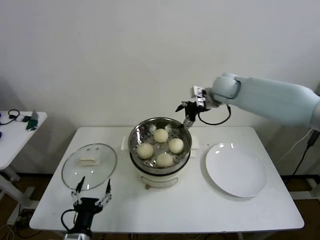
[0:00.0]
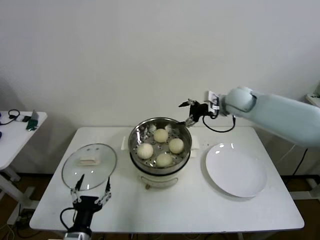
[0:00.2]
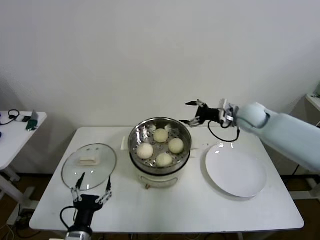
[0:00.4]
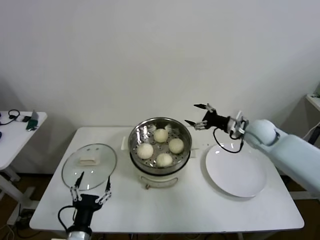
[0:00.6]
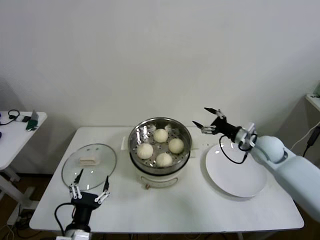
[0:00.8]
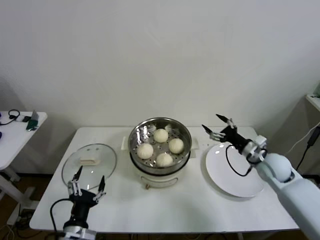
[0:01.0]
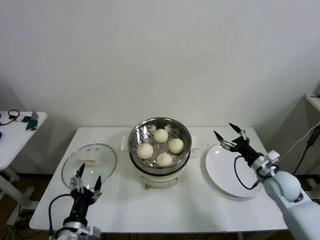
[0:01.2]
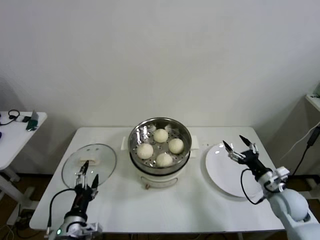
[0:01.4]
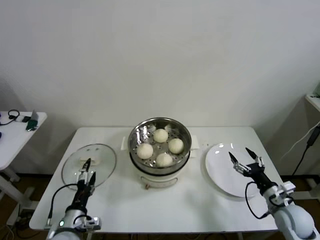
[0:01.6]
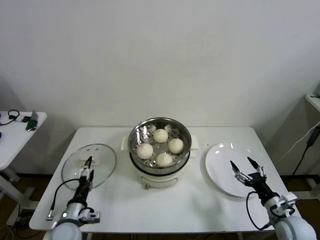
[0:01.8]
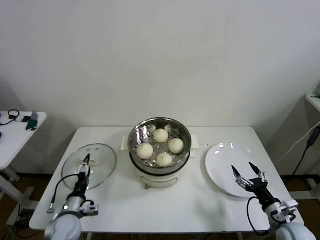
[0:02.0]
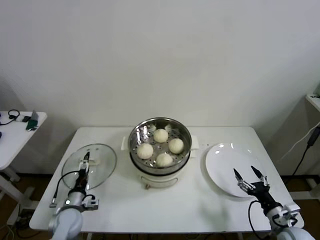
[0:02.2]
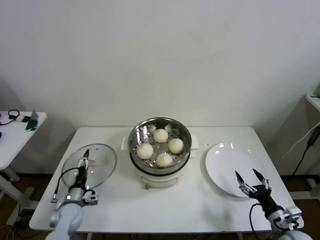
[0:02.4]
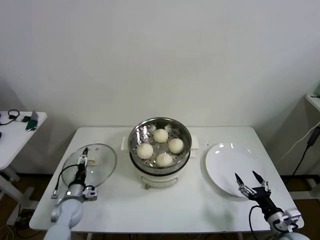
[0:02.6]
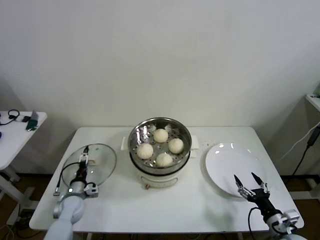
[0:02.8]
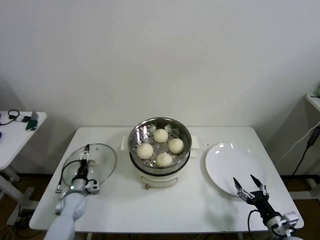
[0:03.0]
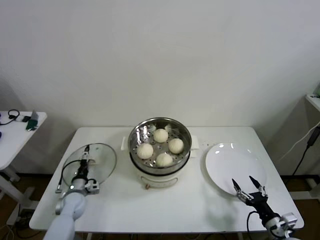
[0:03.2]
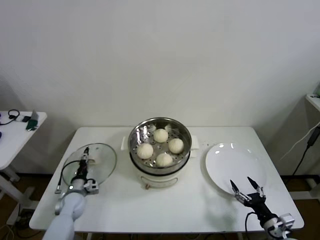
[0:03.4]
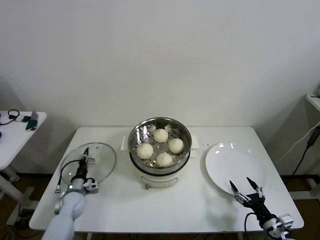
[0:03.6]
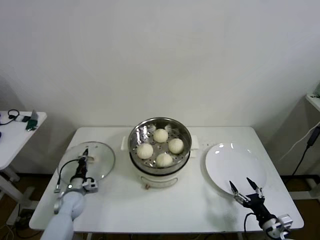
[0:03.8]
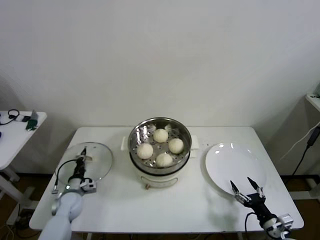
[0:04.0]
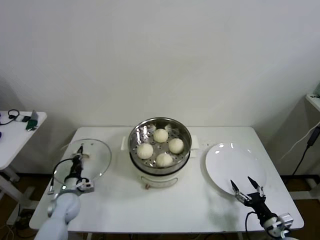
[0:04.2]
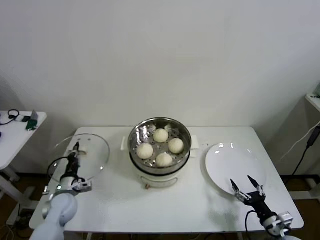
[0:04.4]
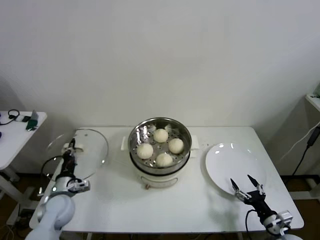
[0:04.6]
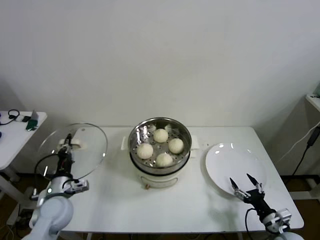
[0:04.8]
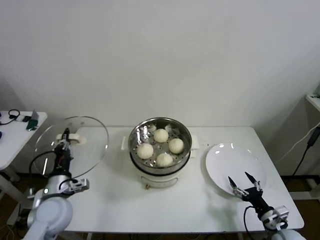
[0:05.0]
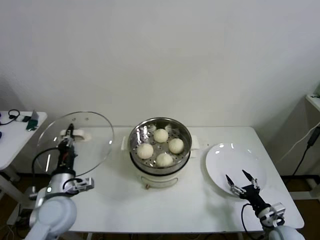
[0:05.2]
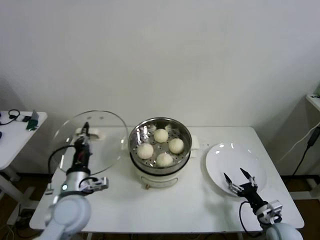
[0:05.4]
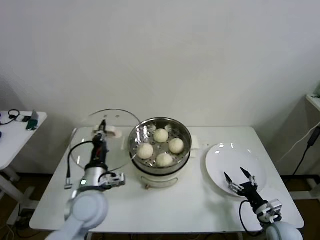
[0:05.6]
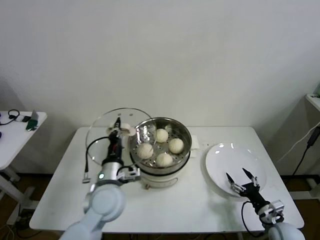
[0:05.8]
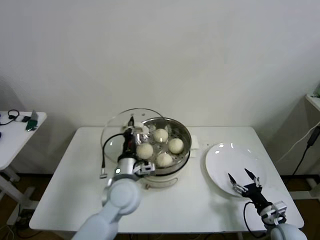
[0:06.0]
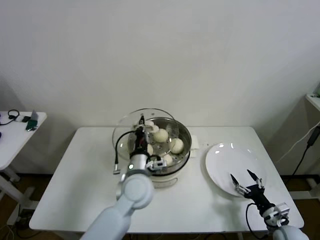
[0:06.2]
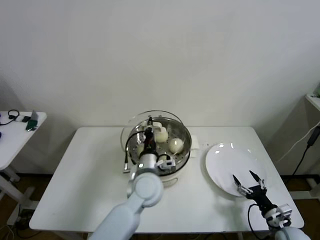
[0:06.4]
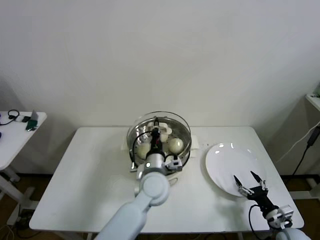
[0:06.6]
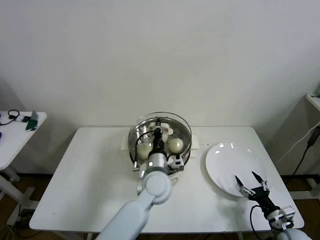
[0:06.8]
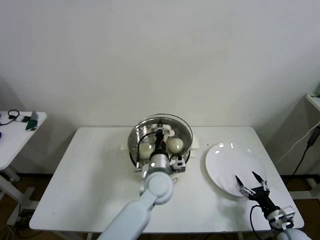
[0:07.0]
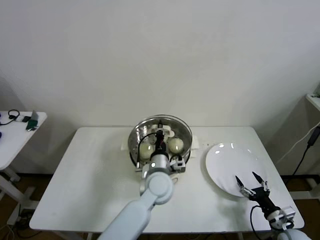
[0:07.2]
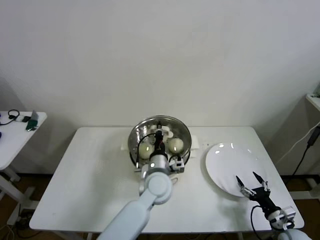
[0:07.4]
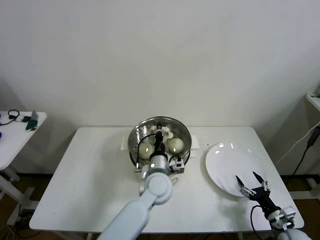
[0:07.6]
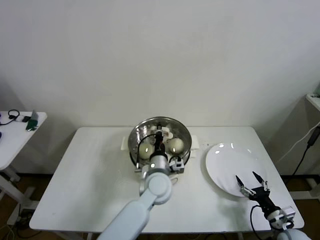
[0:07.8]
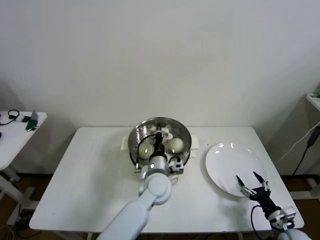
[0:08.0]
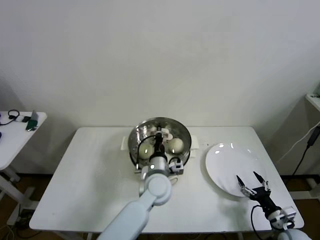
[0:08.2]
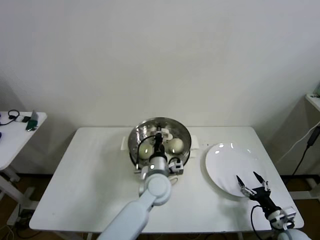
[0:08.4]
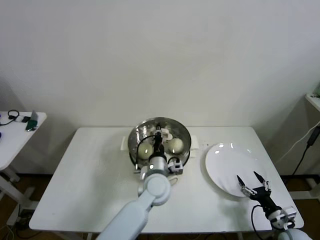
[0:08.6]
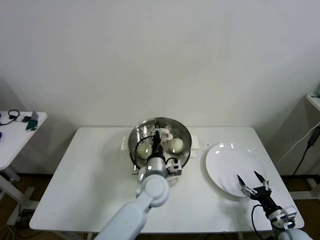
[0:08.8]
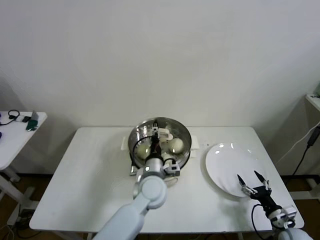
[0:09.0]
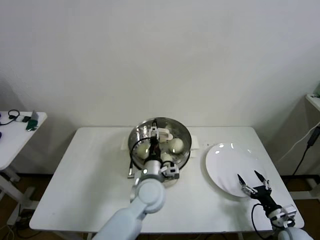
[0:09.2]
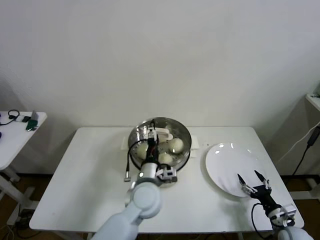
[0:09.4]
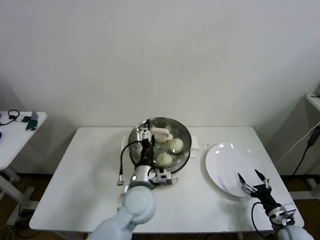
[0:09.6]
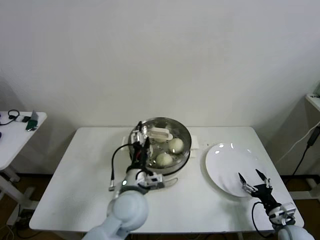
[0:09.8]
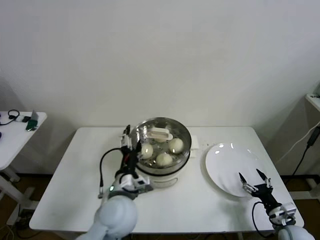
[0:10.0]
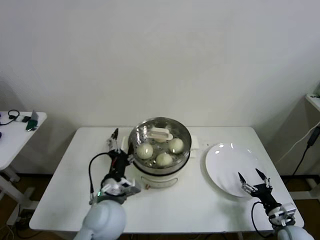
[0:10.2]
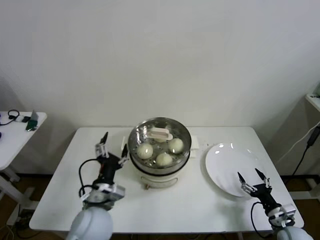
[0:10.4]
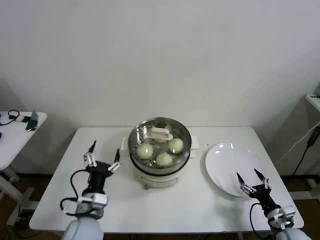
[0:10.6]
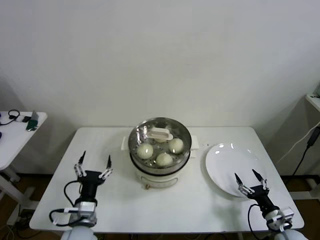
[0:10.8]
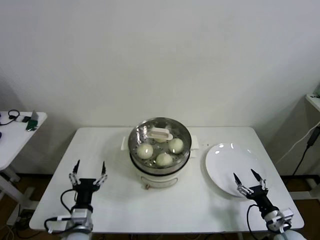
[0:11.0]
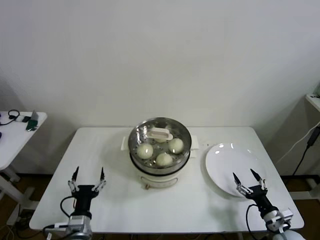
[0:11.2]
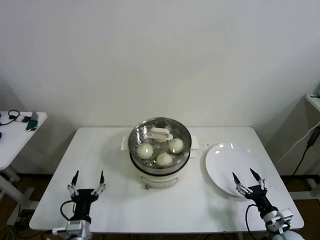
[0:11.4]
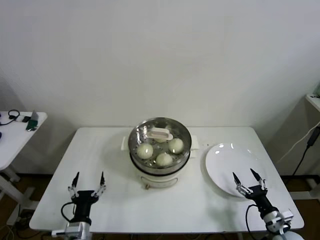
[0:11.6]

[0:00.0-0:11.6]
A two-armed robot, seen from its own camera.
Step, 0:00.0 to 0:03.8: Grasp the pot lid with left gripper.
Step, 0:04.0 to 0:08.8: Place the pot lid on the steamer with left gripper.
0:00.0 to 0:01.4: The right gripper shifts approximately 40 cm backward, downward and to the right.
0:01.4 to 0:02.8: The left gripper travels forward, downward and to the left by some 25 cm; the right gripper heads backward and downward, covering roughly 15 cm.
0:02.8 to 0:04.4: The left gripper closes up.
0:04.4 to 0:05.8: The left gripper goes approximately 25 cm to the right and upward.
0:05.8 to 0:07.2: The left gripper shifts roughly 15 cm to the right and forward.
0:07.2 to 0:08.8: There are only small adjustments of the grippers.
0:08.8 to 0:10.2: The left gripper goes approximately 15 cm to the left, backward and upward, and opens its fingers.
0:10.2 to 0:11.6: The left gripper goes some 20 cm downward, to the left and backward.
